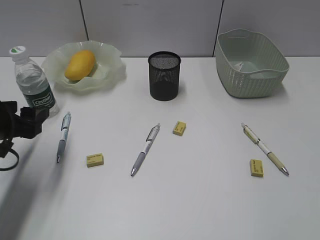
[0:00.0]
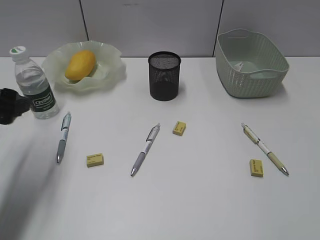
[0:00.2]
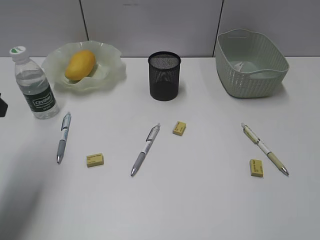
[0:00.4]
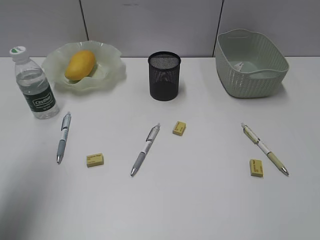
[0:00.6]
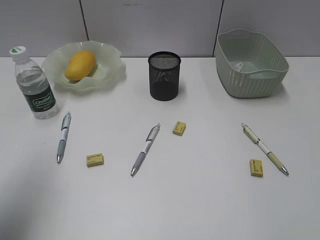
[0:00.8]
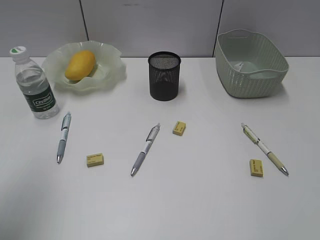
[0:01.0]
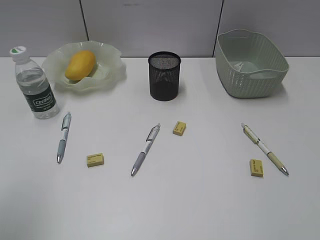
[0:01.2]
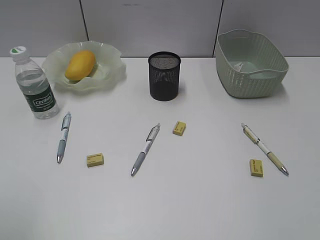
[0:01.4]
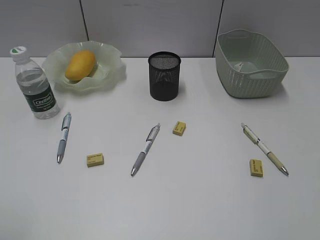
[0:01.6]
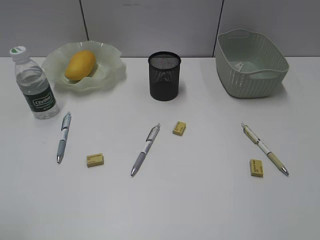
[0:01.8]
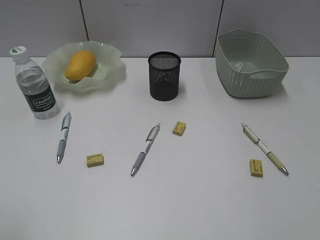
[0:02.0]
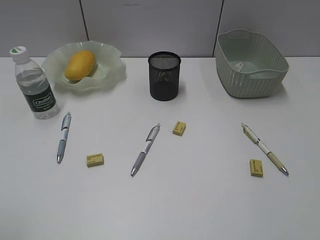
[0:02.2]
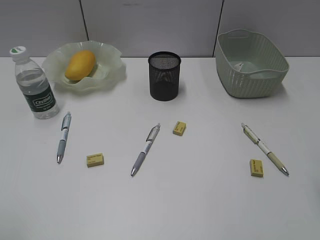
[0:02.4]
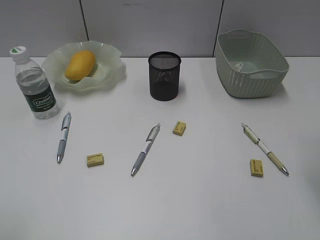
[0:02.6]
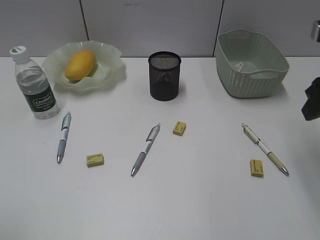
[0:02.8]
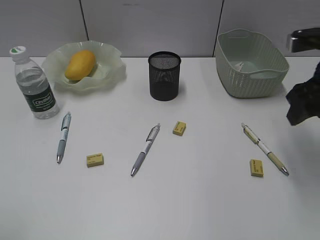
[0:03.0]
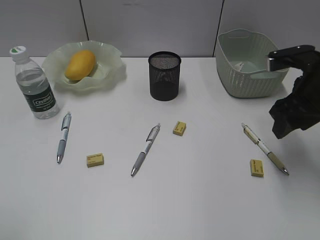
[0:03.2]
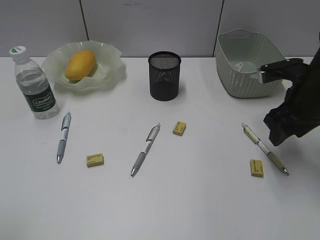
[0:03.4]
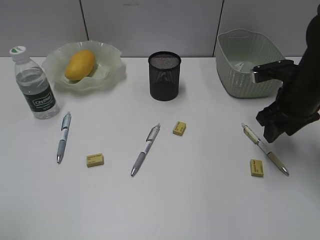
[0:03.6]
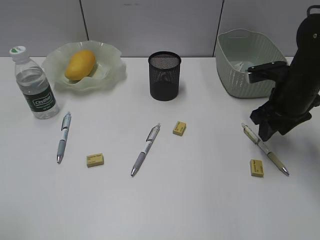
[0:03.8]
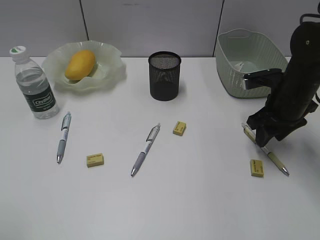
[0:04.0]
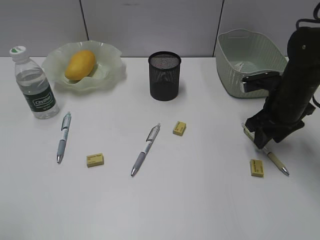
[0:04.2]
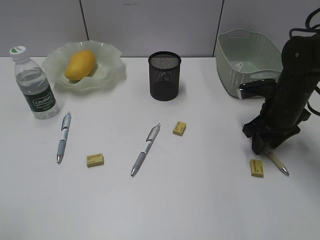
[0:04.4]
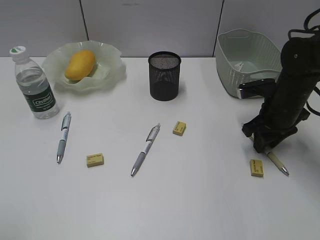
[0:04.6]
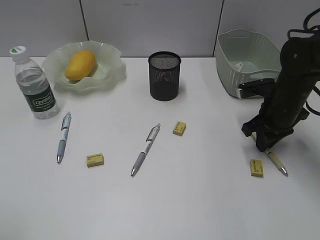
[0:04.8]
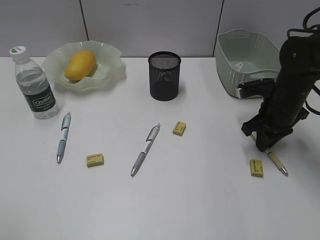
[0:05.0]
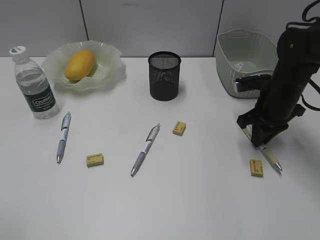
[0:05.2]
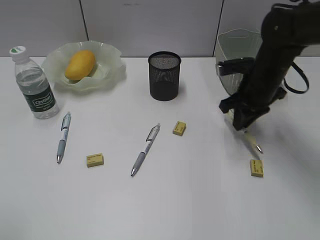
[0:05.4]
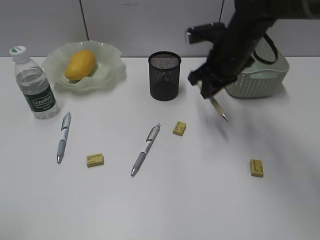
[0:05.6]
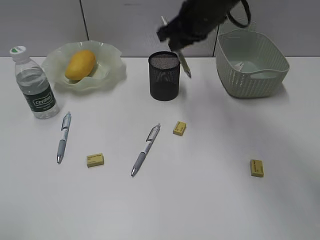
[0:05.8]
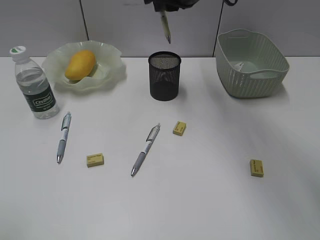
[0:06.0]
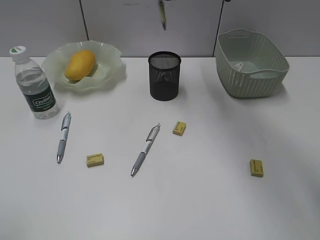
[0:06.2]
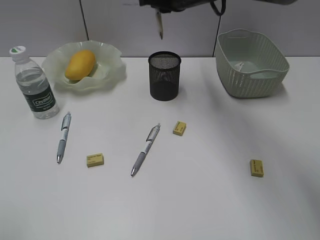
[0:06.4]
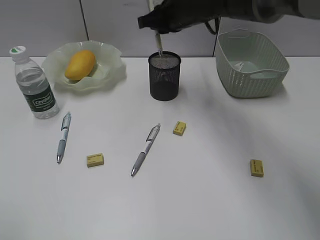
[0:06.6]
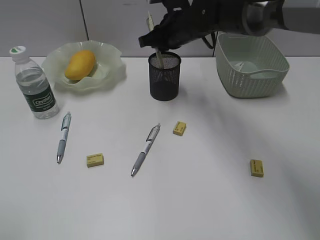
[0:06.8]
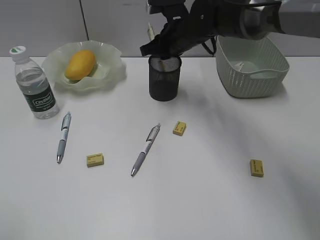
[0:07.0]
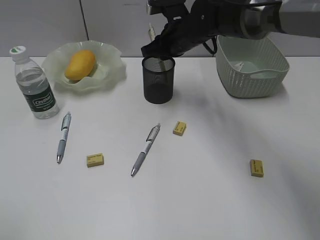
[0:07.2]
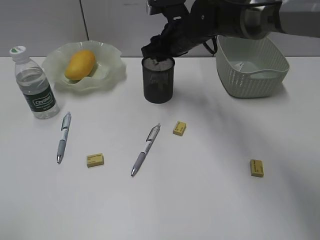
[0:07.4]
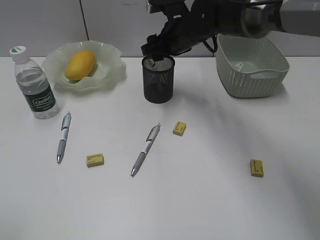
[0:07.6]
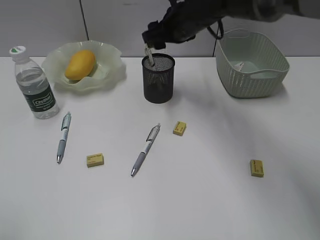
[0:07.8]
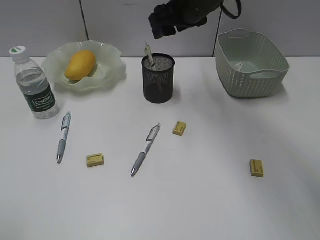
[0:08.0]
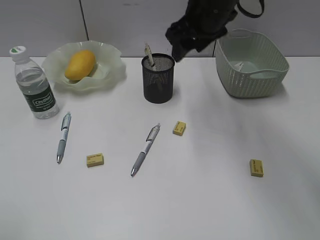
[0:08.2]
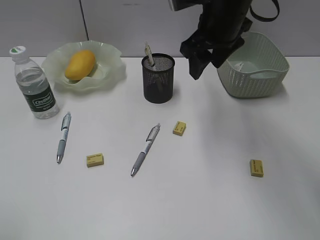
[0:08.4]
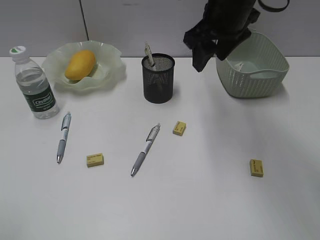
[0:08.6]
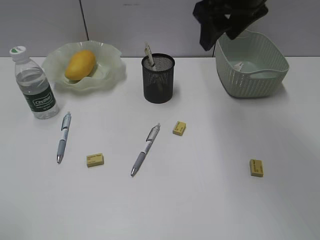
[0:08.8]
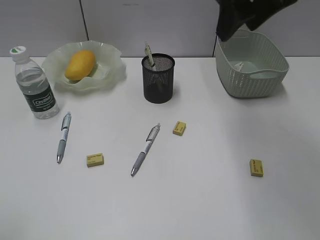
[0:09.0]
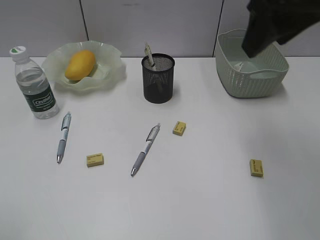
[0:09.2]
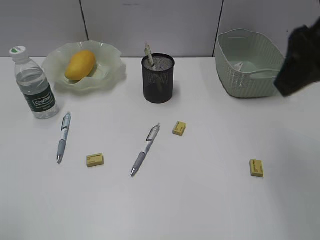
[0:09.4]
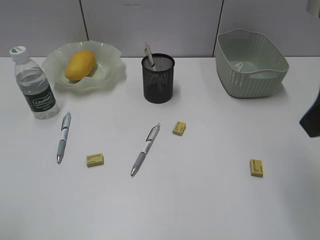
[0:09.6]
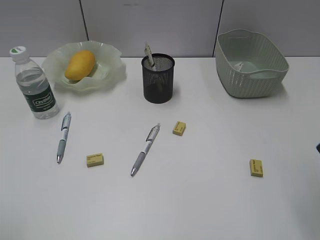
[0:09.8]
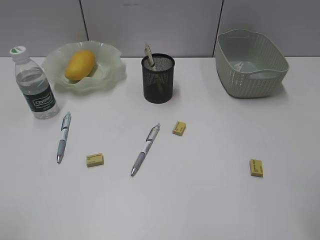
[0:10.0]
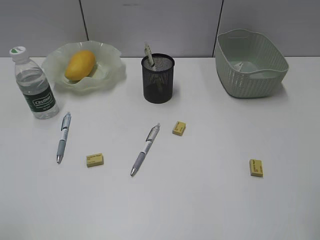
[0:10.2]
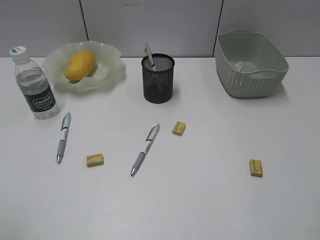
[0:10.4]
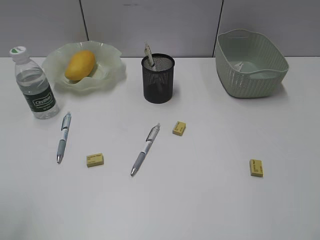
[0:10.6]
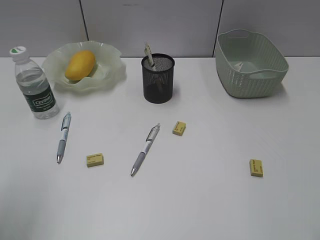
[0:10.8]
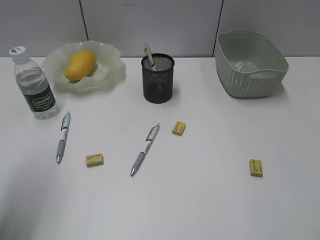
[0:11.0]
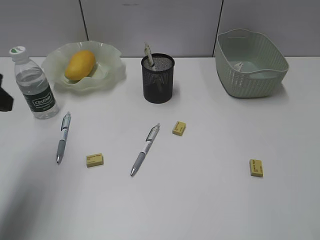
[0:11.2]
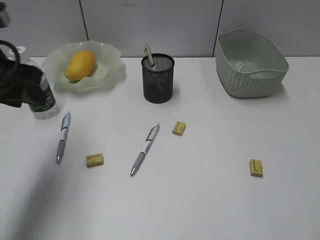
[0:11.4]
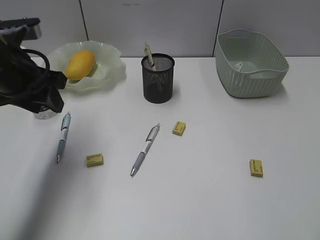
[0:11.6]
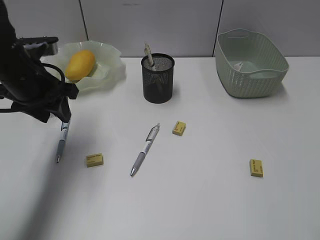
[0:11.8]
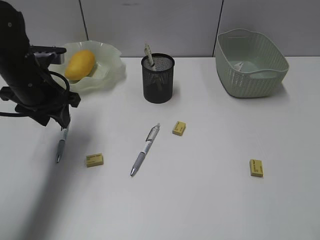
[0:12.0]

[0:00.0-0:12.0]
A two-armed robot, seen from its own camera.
Step, 0:00.0 to 0:05.0: Grasp the yellow pen with right gripper.
Step, 0:05.2 to 0:07.4: Place the yellow pen in pen holder with right gripper.
0:00.0 to 0:01.6: The left gripper goes roughly 25 cm backward and upward.
0:01.6 to 0:03.0: The right gripper travels forward by some 25 cm.
0:03.0 to 0:04.4: The right gripper travels downward and forward by approximately 15 cm.
0:04.4 to 0:06.0: The right gripper is displaced upward, to the left and forward by roughly 25 cm, and closes up.
0:06.0 to 0:07.6: The right gripper moves downward, roughly 10 cm, and opens up.
0:07.6 to 0:09.0: The right gripper shifts about 25 cm upward, backward and to the right.
0:09.0 to 0:10.4: The right gripper shifts some 25 cm backward and to the right.
0:10.4 to 0:12.0: The left gripper travels forward by some 30 cm.

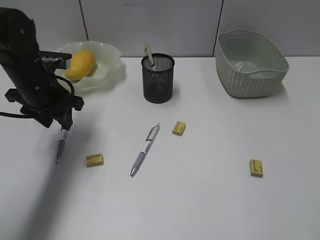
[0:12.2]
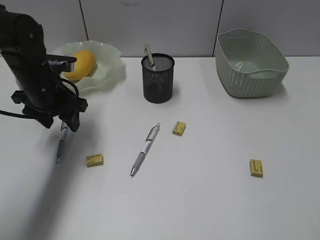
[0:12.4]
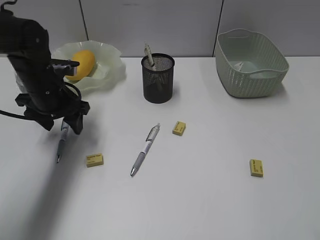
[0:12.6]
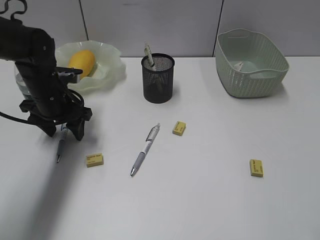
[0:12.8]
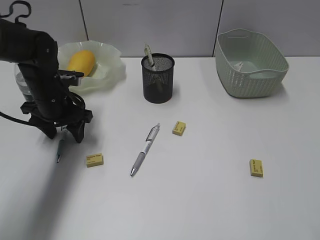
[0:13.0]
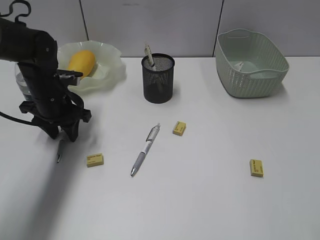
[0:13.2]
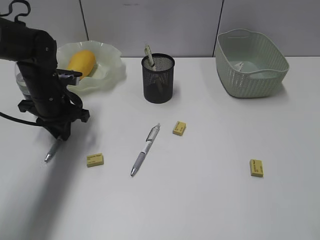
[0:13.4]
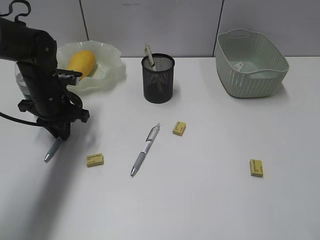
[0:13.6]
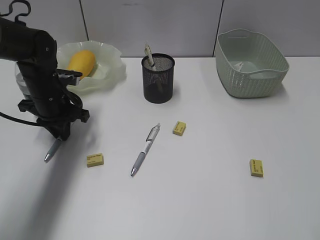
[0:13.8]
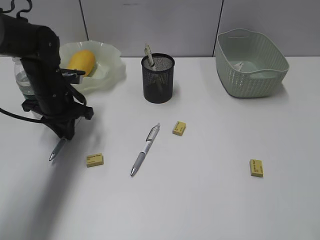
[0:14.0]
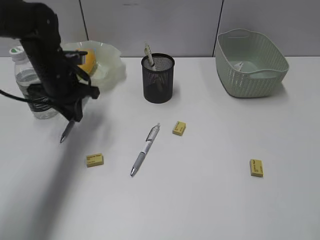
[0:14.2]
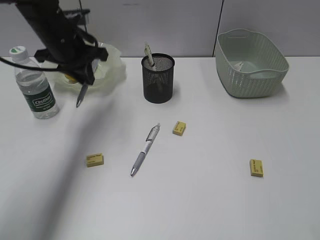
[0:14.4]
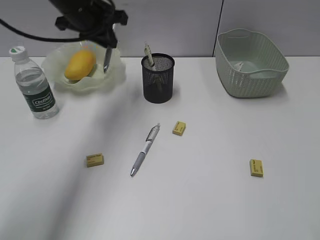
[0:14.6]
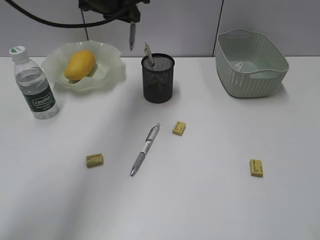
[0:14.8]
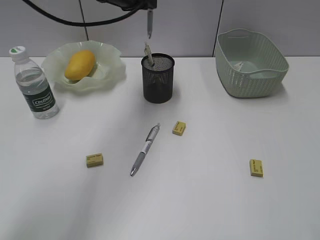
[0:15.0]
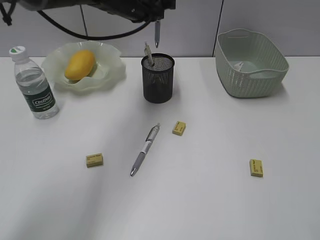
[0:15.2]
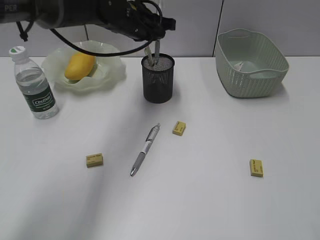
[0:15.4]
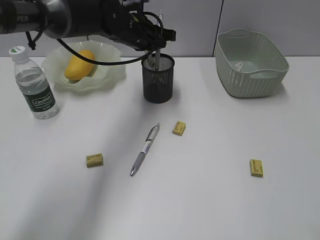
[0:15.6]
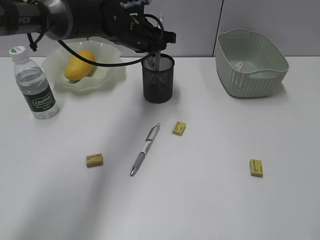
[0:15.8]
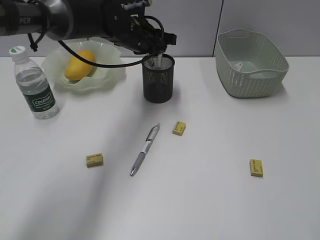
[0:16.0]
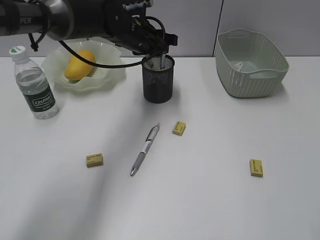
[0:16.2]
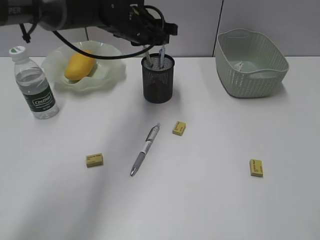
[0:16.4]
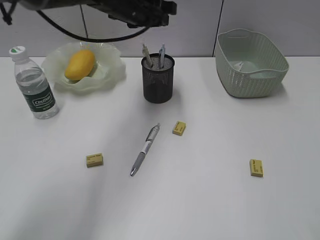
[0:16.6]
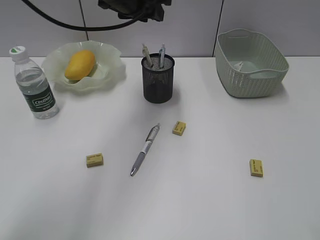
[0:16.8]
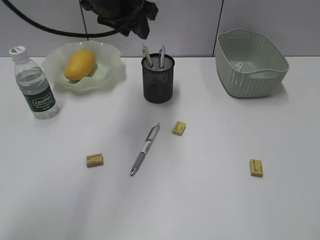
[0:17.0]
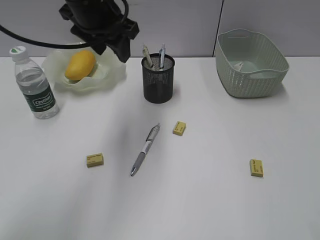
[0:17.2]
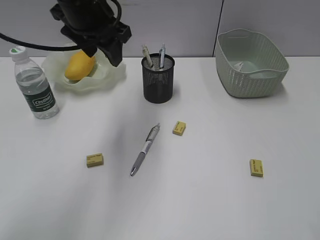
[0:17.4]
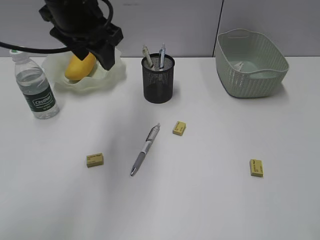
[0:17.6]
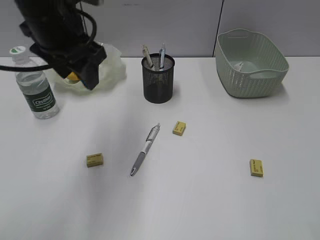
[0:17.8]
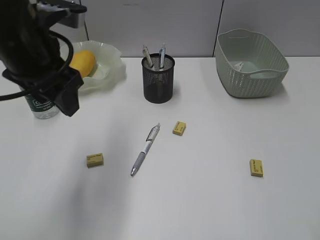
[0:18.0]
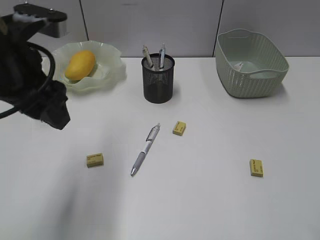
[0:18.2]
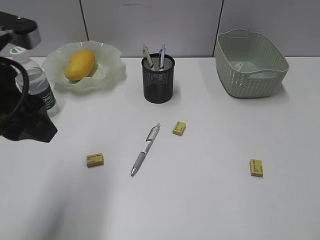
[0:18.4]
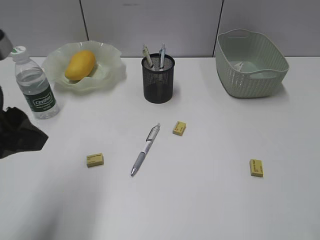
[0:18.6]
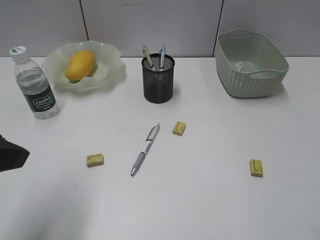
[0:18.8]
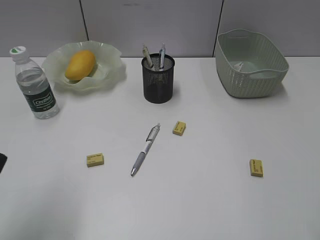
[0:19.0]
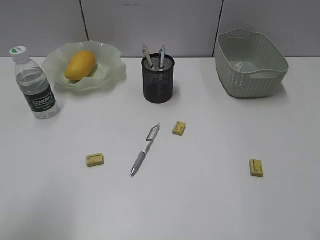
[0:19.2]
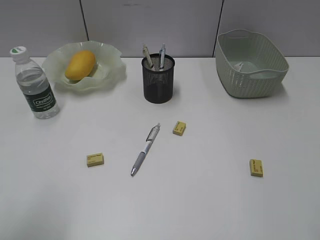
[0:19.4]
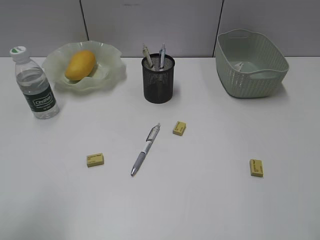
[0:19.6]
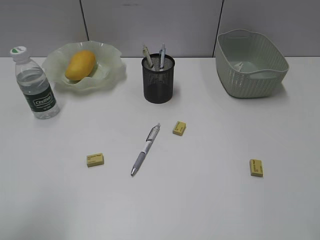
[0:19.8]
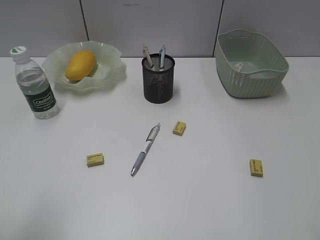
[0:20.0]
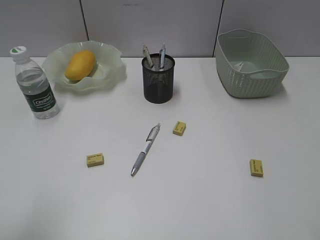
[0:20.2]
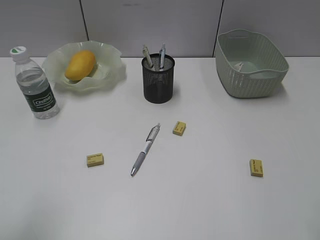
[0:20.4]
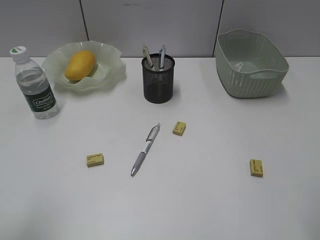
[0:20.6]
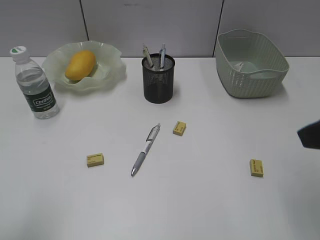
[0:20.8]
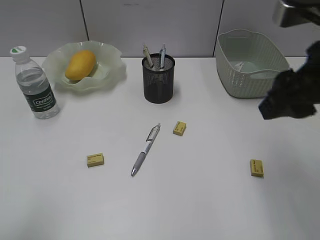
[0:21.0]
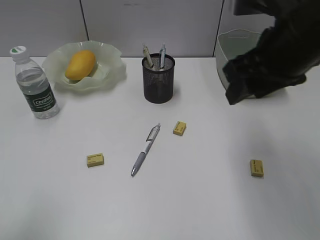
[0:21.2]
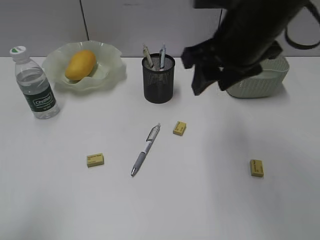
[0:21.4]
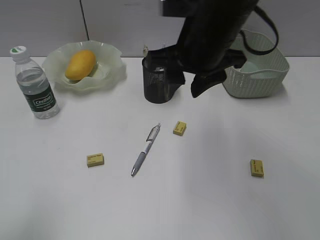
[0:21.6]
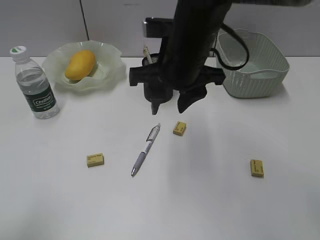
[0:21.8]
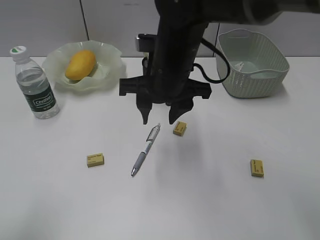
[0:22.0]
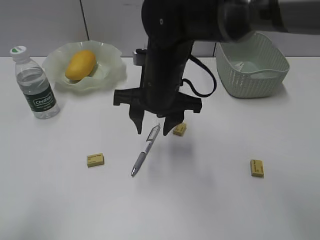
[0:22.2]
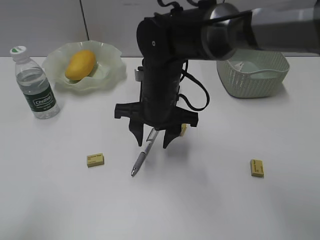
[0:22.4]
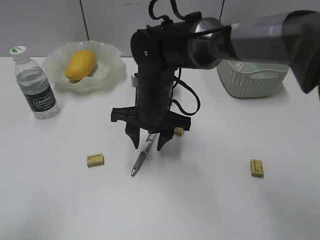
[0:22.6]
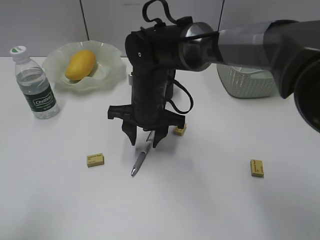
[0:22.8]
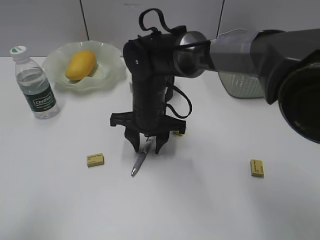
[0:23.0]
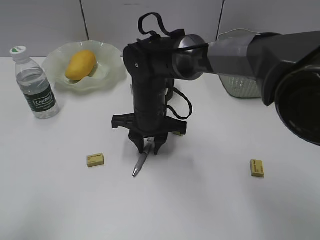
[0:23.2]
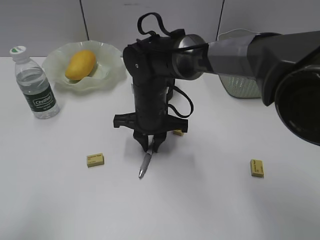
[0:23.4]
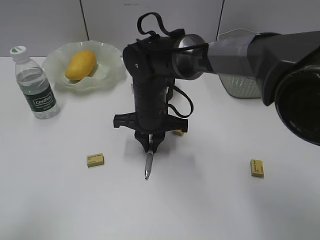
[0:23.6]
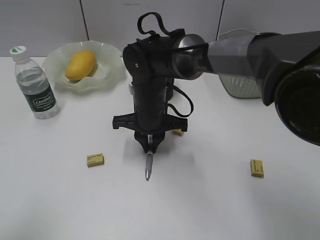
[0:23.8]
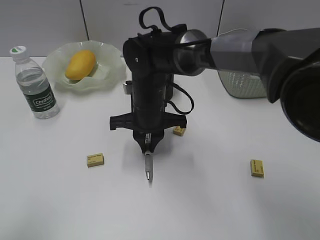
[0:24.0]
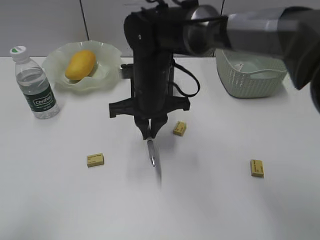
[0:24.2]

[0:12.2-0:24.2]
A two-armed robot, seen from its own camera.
Step, 0:14.0 to 0:16.0: Place the blue pen in pen holder with left gripper.
Step, 0:16.2 to 0:23.8: Grasp the gray pen with right gripper.
0:12.2 to 0:13.8: The left gripper is displaced downward by about 5 cm, and closes.
0:13.8 to 0:15.2: The left gripper goes some 20 cm upward, to the right and forward.
0:15.2 to 0:16.6: The left gripper opens up.
0:16.6 to 0:18.2: The left gripper goes roughly 25 cm backward and to the left.
0:18.2 to 0:19.8: The left gripper travels backward and to the left by about 20 cm.
0:19.8 to 0:21.2: The right gripper moves forward and to the left, about 20 cm.
0:21.2 to 0:22.6: The right gripper heads to the left, downward and forward, covering roughly 25 cm.
0:22.6 to 0:24.2: The right gripper closes its fingers.
